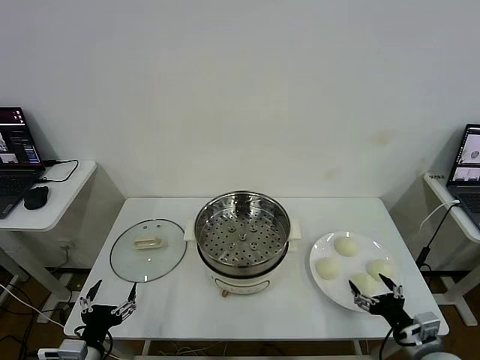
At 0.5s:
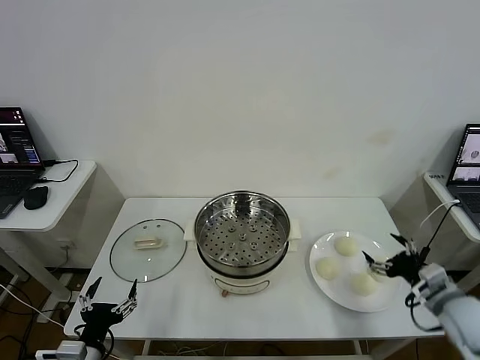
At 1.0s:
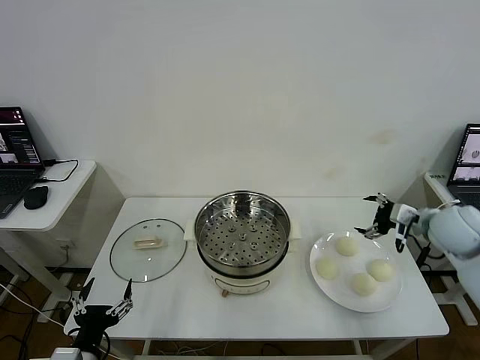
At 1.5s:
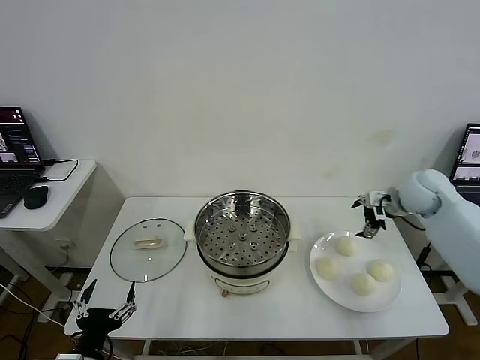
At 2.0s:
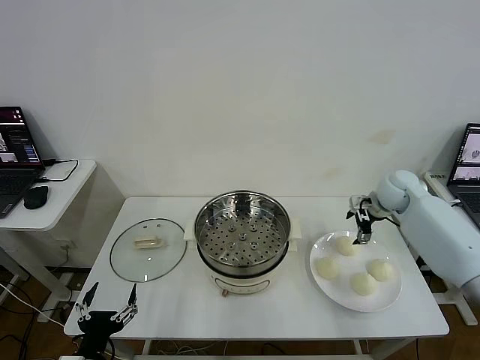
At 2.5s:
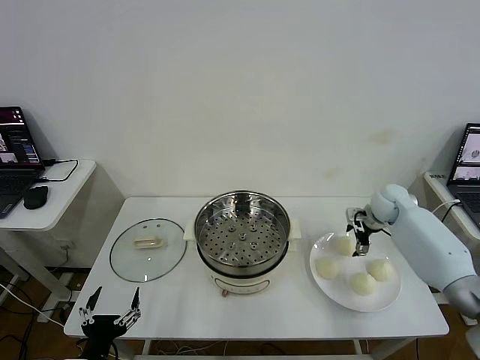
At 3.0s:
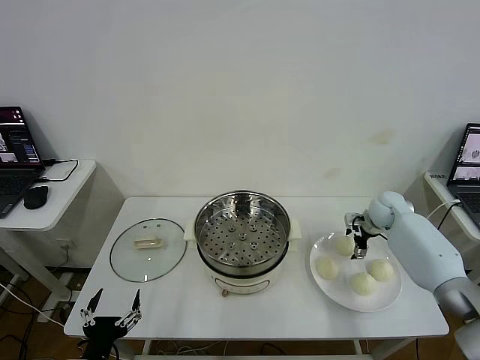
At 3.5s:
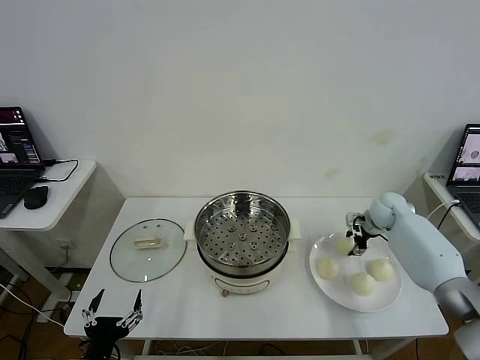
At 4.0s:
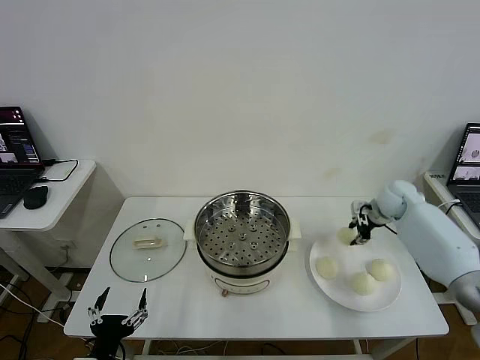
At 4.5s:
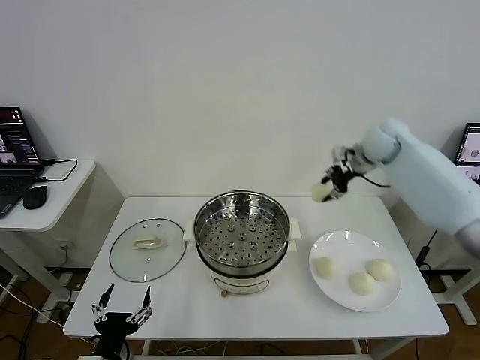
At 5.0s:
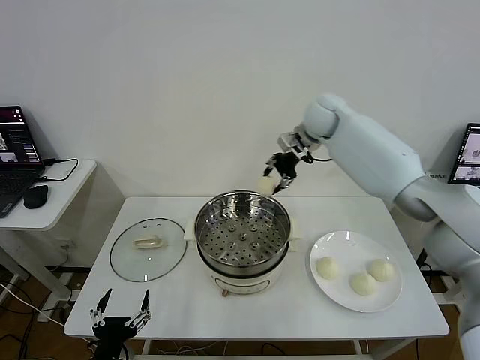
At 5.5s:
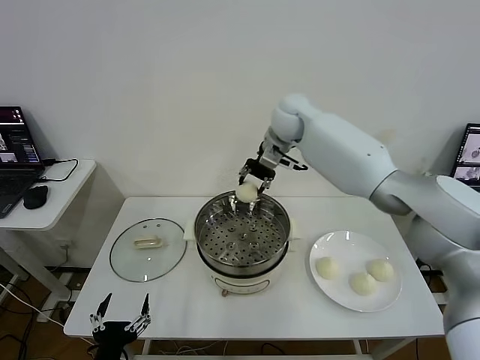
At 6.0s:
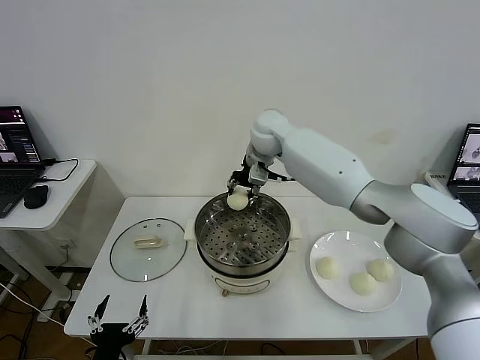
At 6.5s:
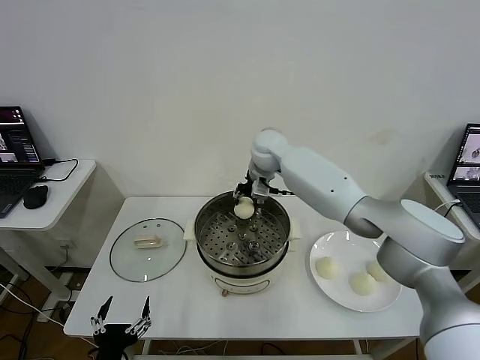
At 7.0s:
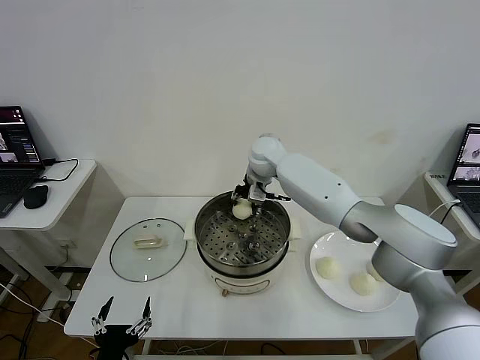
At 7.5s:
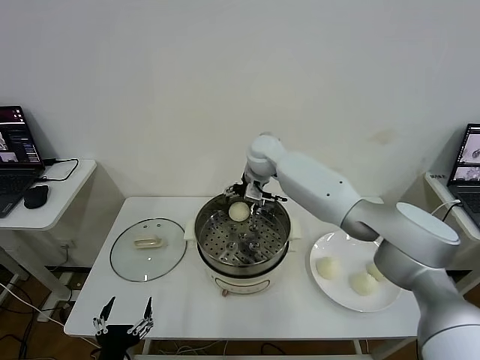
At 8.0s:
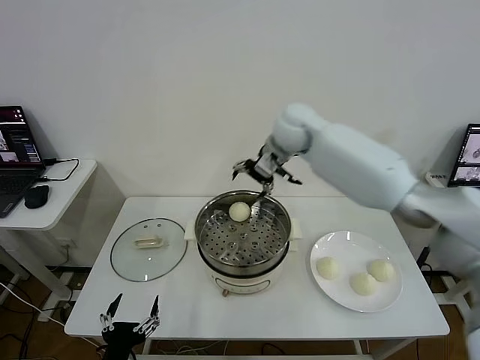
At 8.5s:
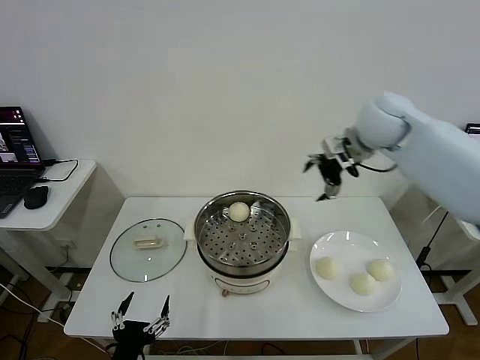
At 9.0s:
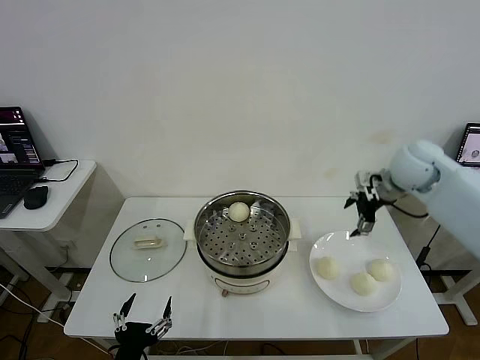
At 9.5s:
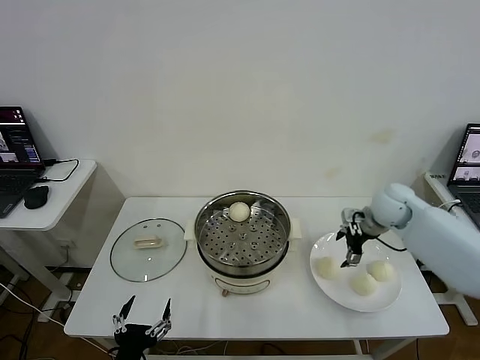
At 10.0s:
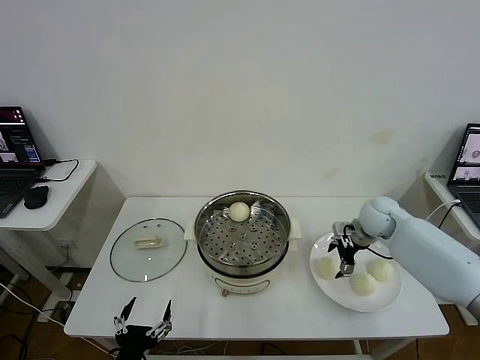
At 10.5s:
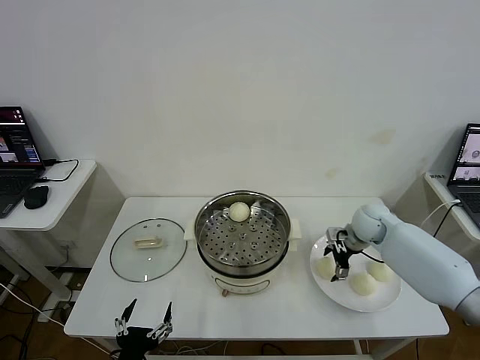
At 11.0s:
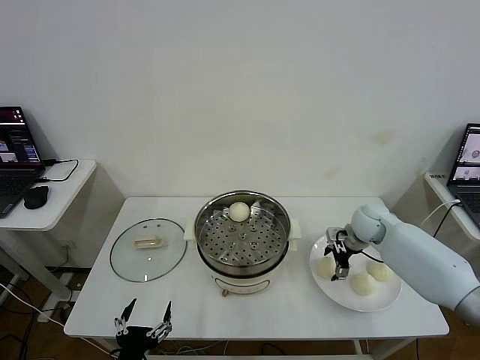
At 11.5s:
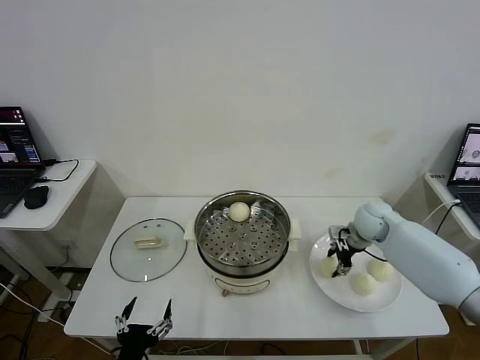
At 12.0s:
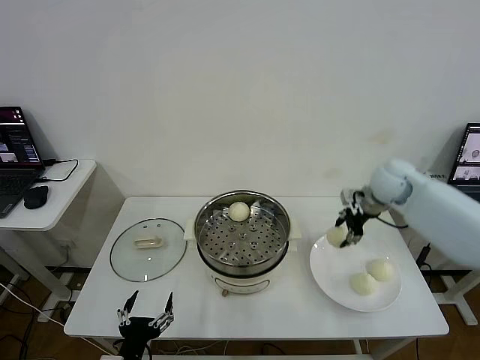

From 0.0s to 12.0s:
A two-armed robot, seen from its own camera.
Task of the whole recording: take steamed baozi put them in steamer then cover it.
Step, from 0.0s to 3.5s: Grasp the baozi in the plate with right gripper.
Step, from 4.0s to 7.0s: Place the baozi on the steamer with right gripper.
Step, from 7.5s to 11.0s: Grasp the baozi in the plate with right gripper.
From 2.0s to 4.0s: The right gripper closes.
From 4.0s to 6.0s: The right gripper shifts roughly 35 cm to the left.
From 6.0s to 8.0s: The right gripper heads to the right and upward, covering about 10 cm, and opens its fingers.
From 8.0s to 10.0s: The right gripper heads downward and to the right, covering some 30 cm.
From 10.0s to 12.0s: The right gripper heads upward, covering some 15 cm, and closes.

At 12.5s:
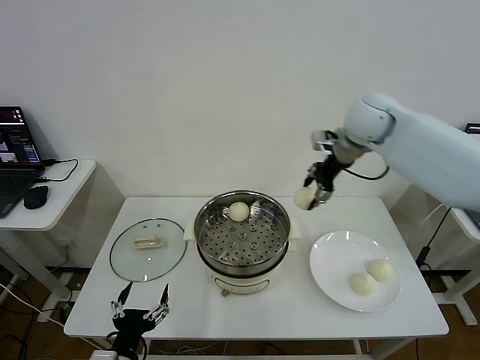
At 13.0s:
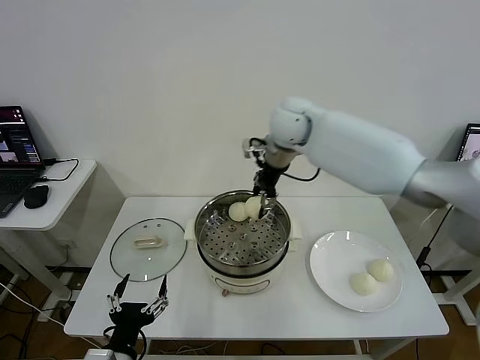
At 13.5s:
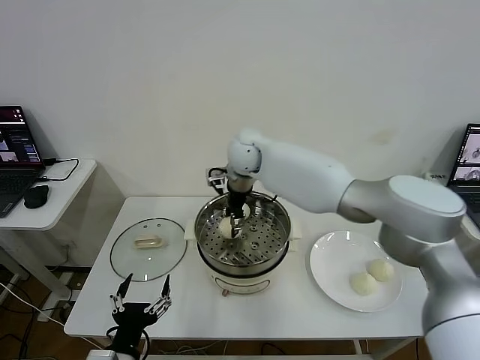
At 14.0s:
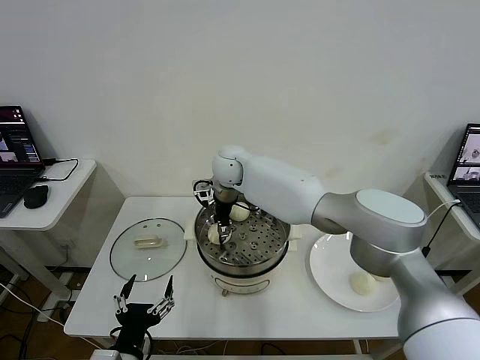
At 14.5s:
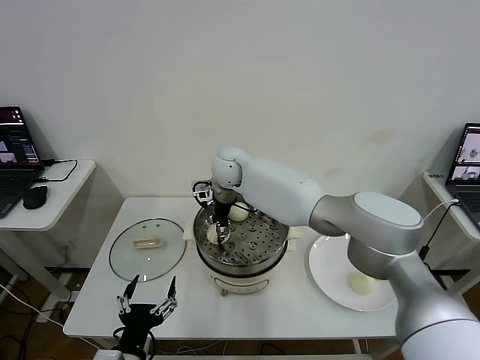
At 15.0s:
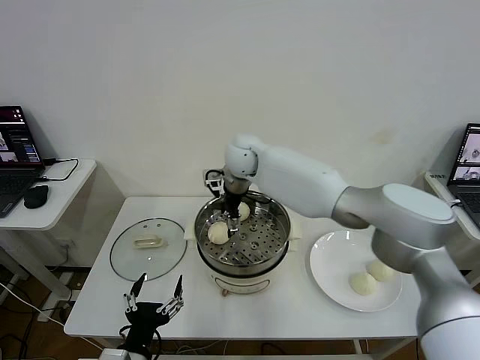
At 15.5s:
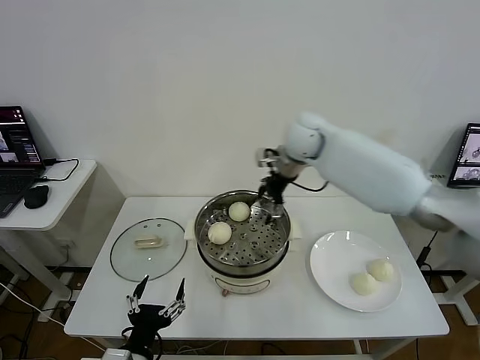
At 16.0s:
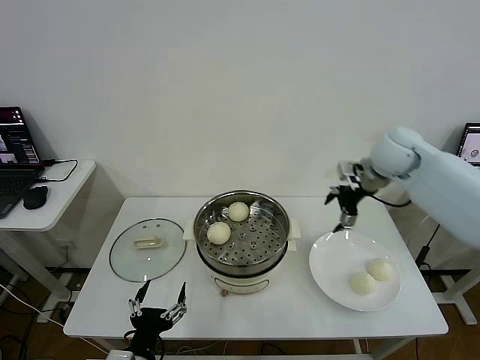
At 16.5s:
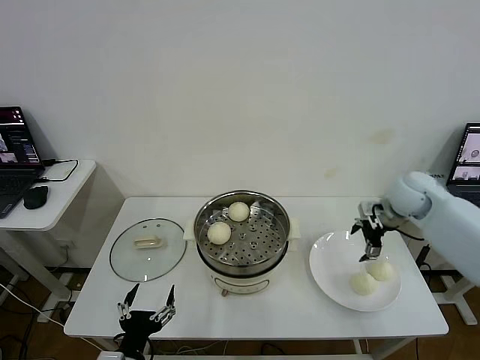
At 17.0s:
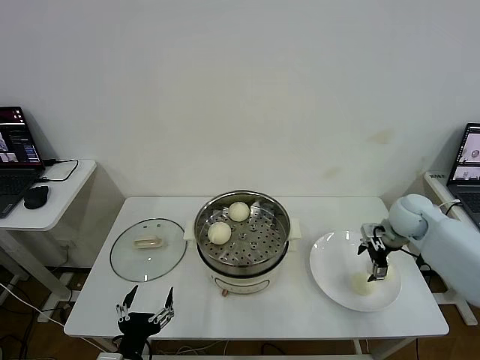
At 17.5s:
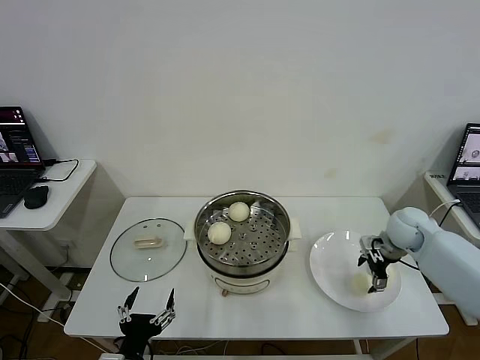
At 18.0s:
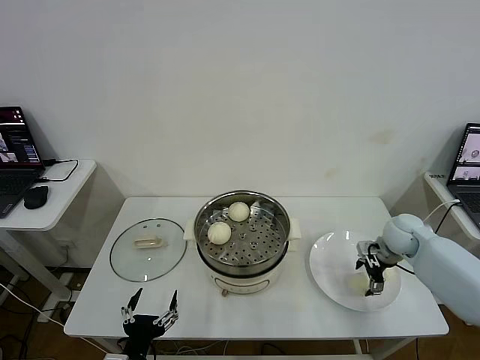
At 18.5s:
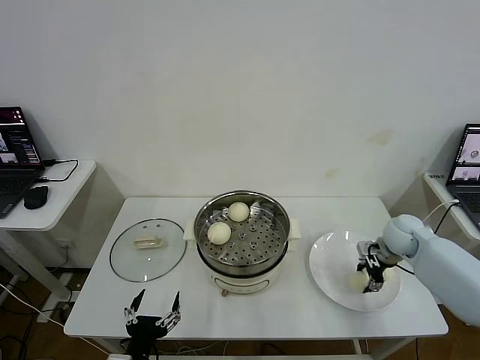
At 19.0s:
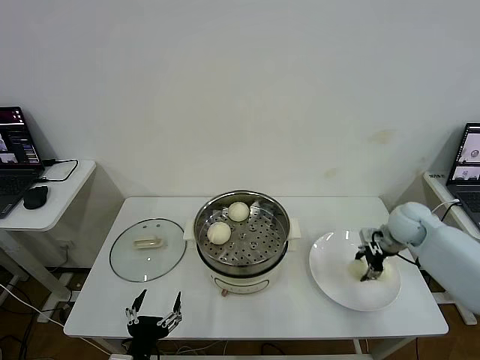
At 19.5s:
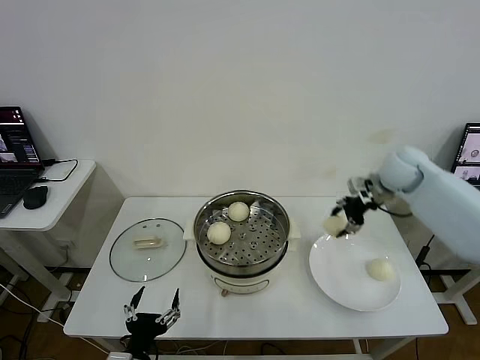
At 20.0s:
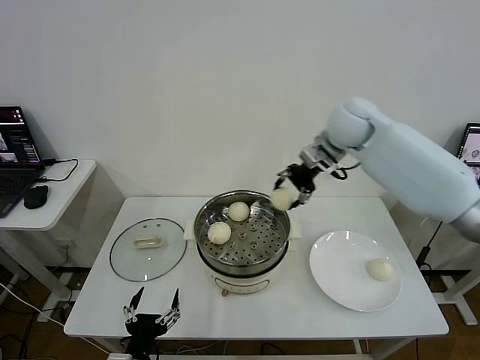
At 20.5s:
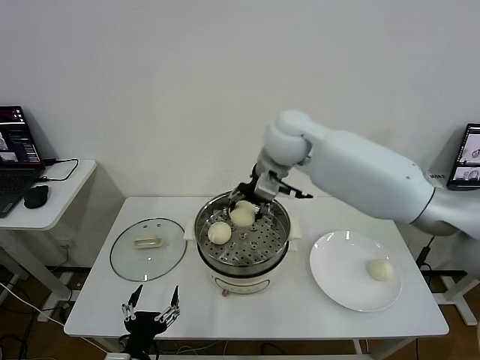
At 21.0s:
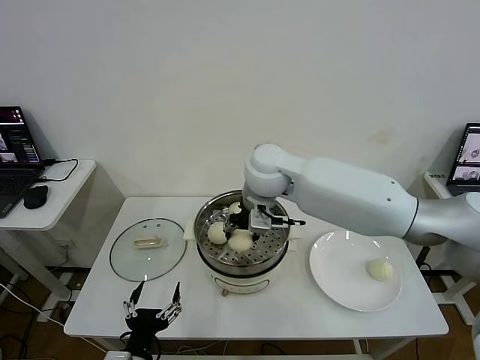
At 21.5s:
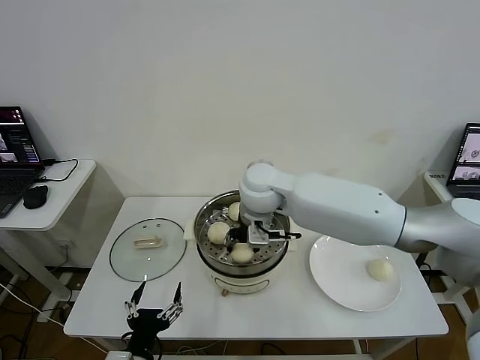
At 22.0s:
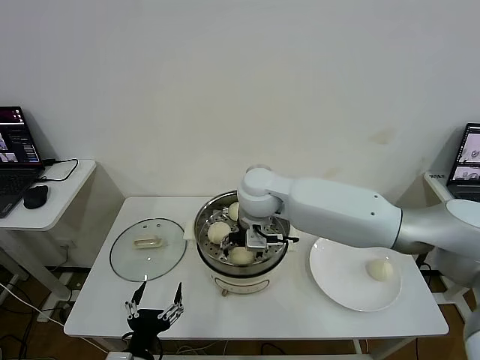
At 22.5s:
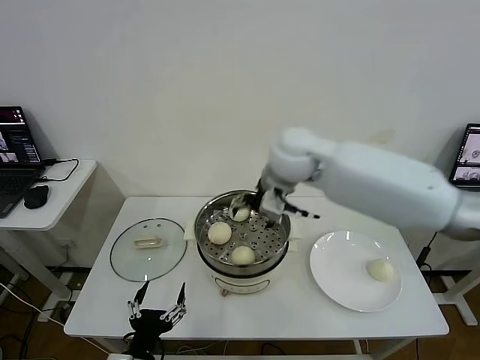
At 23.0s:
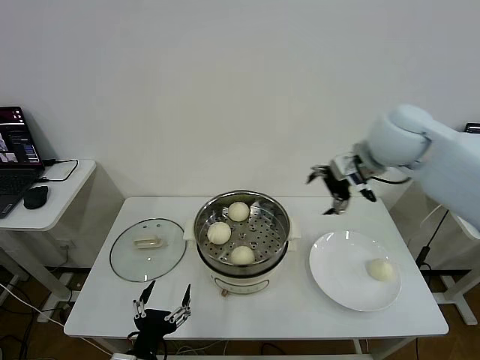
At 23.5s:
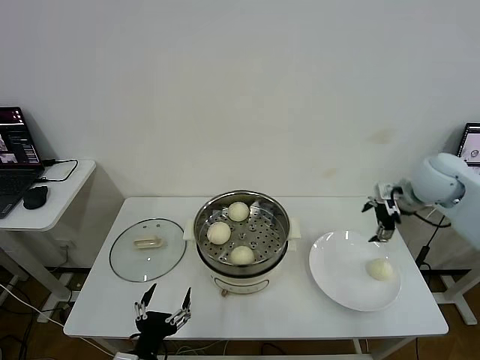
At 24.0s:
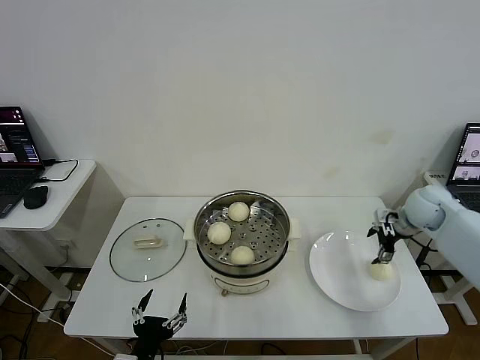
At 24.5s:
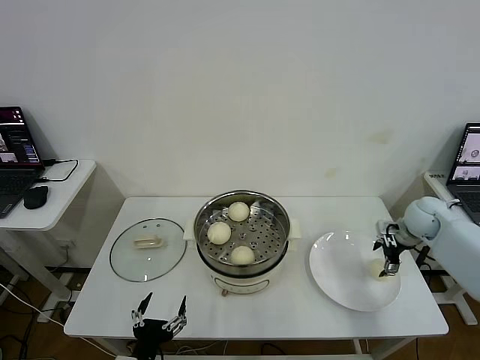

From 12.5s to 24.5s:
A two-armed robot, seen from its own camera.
Task of the whole recording: take steamed baozi put them in steamer then cover it.
Step, from 12.5s to 14.5s: Place the baozi on the steamer with right gripper.
Step, from 15.0s to 18.5s: Grasp the baozi in the plate with right gripper.
Step, from 19.0s to 22.0s: Place the baozi on the steamer with right gripper.
From 12.5s to 14.5s: The right gripper shifts roughly 30 cm to the left and downward.
From 14.5s to 16.5s: The right gripper travels to the right by approximately 40 cm, and opens.
From 16.5s to 18.5s: The right gripper moves downward, roughly 10 cm, and closes.
From 18.5s to 20.5s: The right gripper moves to the left and upward, about 40 cm.
From 20.5s to 22.5s: The right gripper travels downward and back again, approximately 10 cm each way, and opens.
From 22.5s to 24.5s: The right gripper moves to the right and downward, some 40 cm.

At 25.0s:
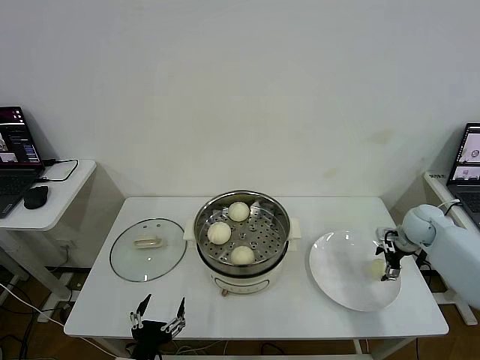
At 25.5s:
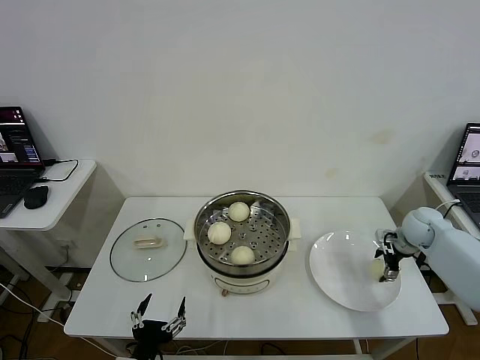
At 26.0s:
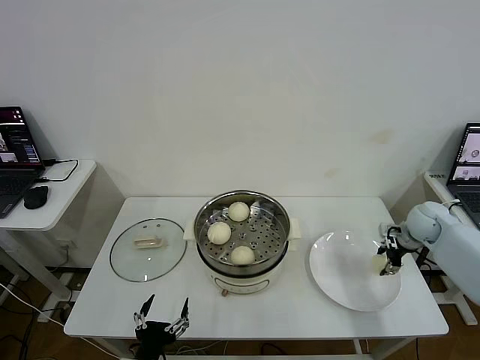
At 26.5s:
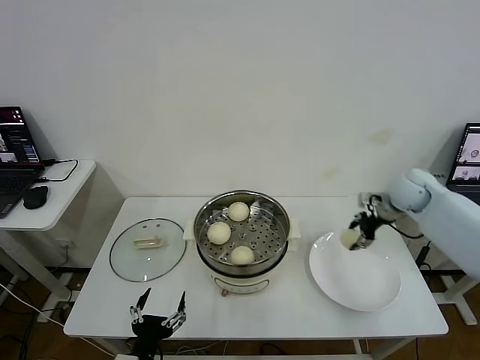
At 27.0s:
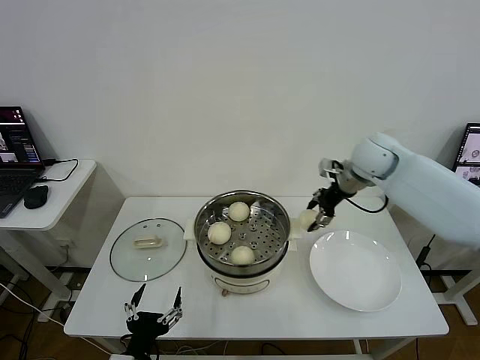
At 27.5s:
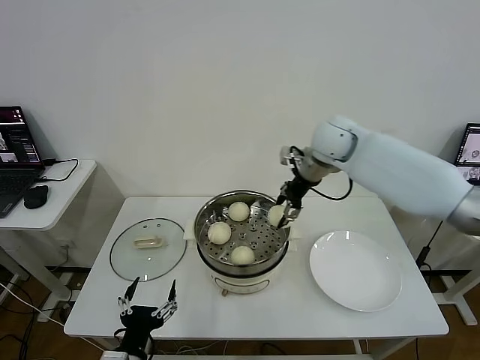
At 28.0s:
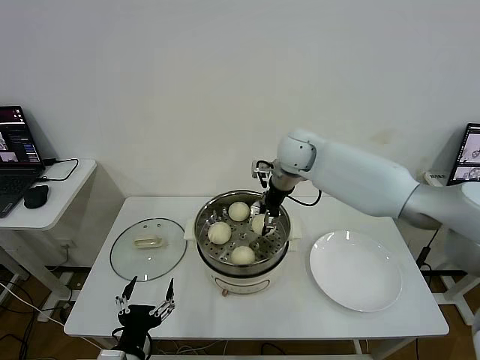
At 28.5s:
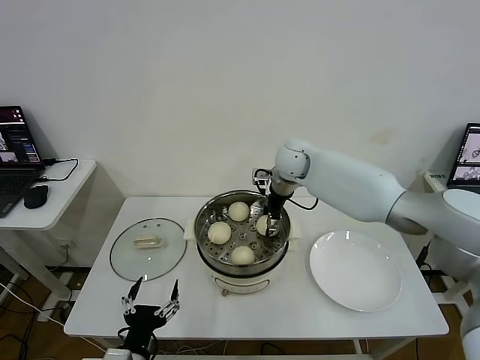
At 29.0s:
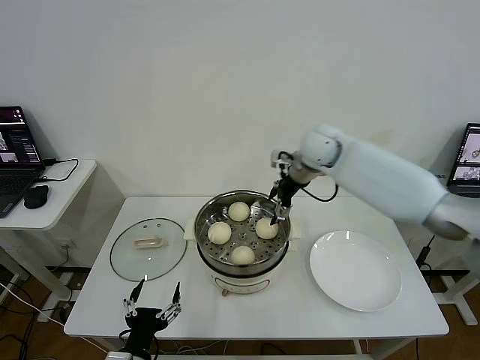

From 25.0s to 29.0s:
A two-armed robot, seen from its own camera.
Task of the whole recording: take steamed baozi put them in steamer then cover it.
Step, from 26.0s to 28.5s: Place the baozi on the steamer with right gripper.
From 25.0s to 27.0s: The right gripper shifts approximately 25 cm to the left and upward, and closes its fingers.
From 27.0s to 29.0s: The right gripper moves to the left, about 10 cm, and opens.
